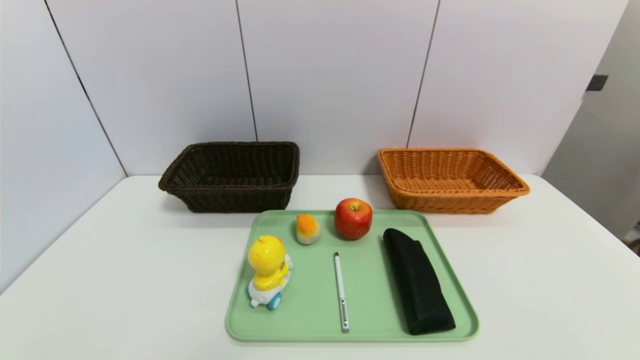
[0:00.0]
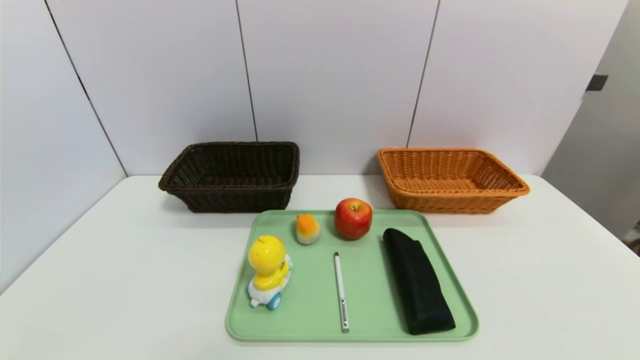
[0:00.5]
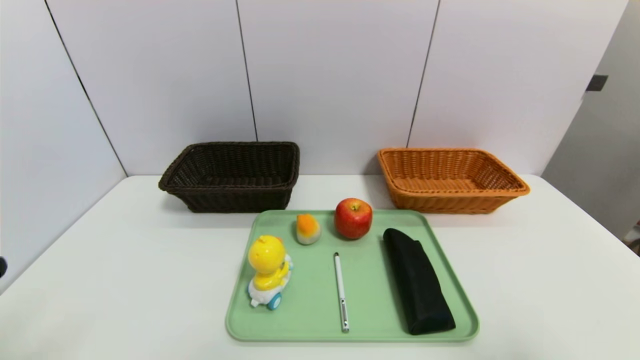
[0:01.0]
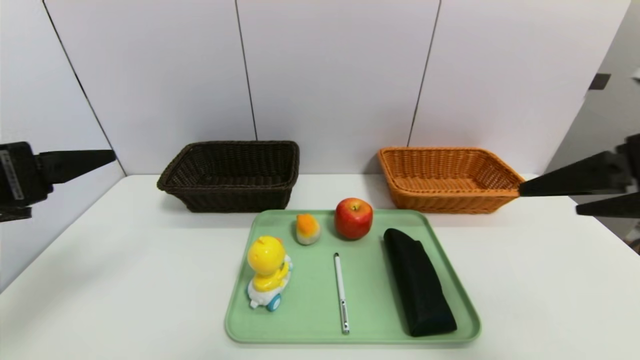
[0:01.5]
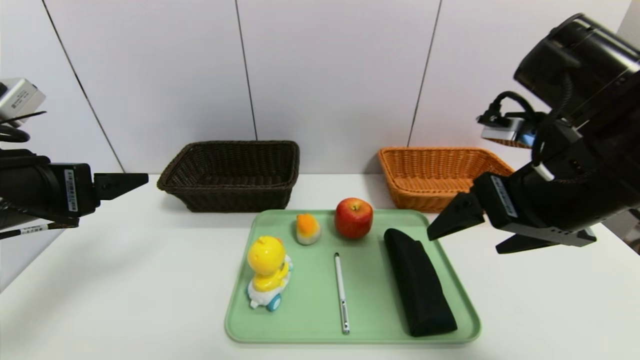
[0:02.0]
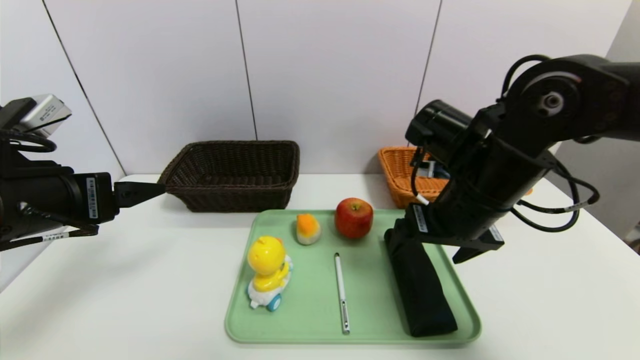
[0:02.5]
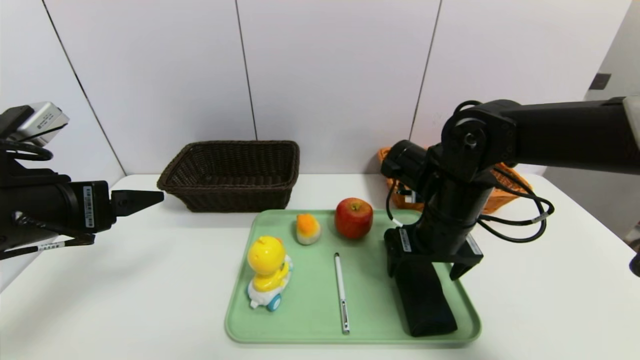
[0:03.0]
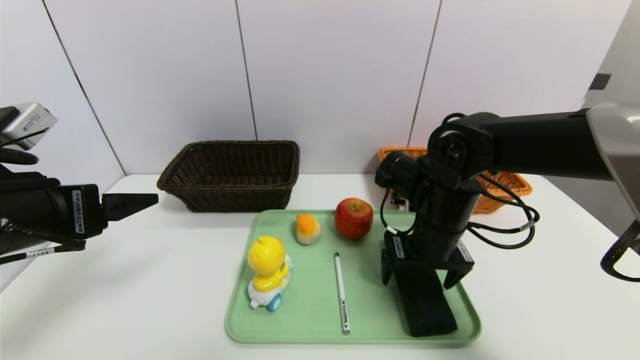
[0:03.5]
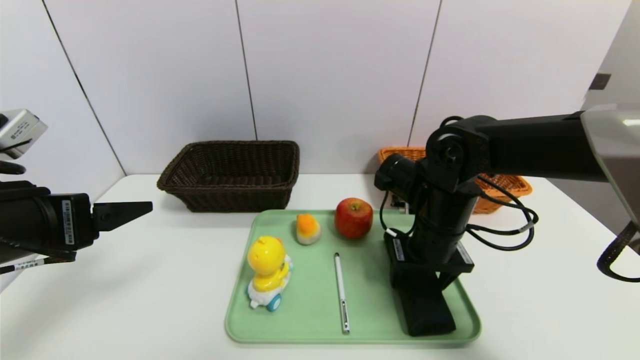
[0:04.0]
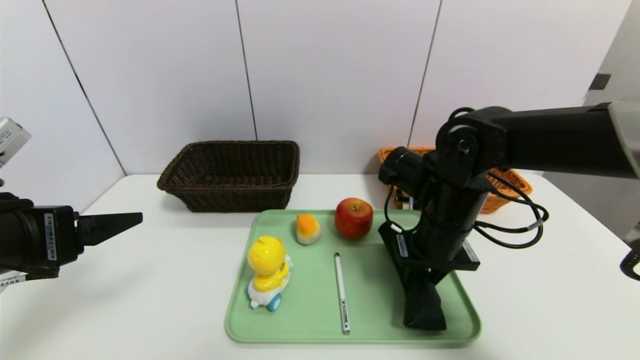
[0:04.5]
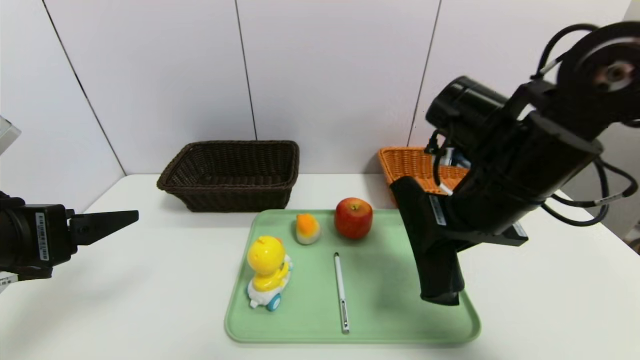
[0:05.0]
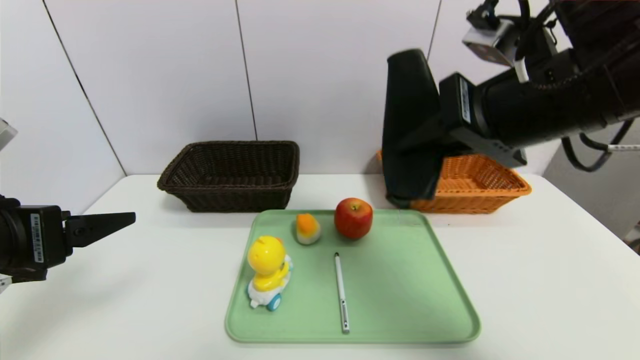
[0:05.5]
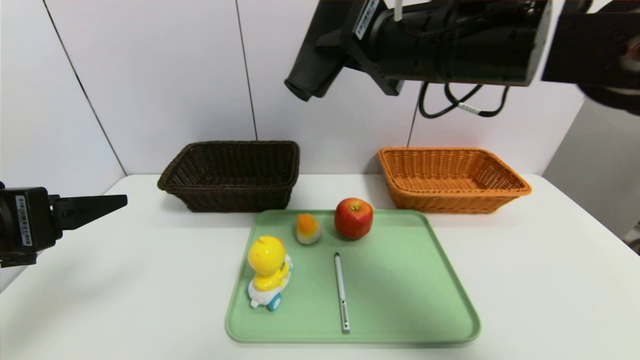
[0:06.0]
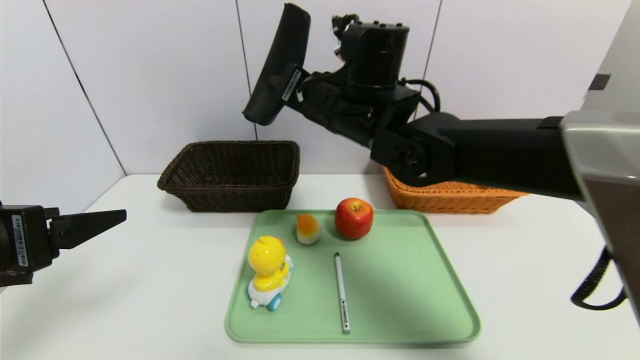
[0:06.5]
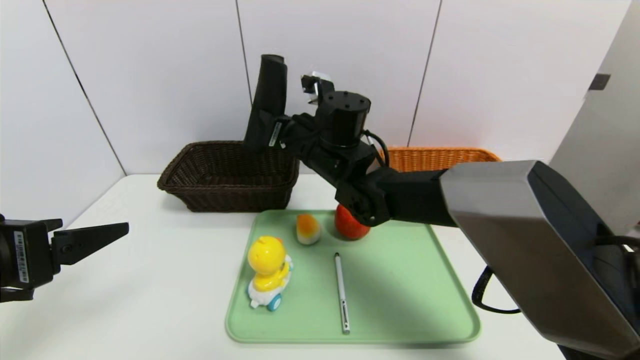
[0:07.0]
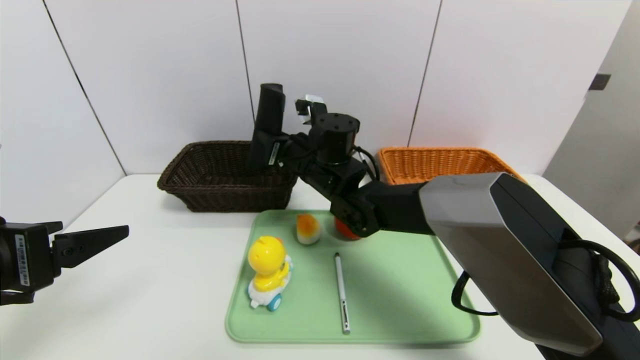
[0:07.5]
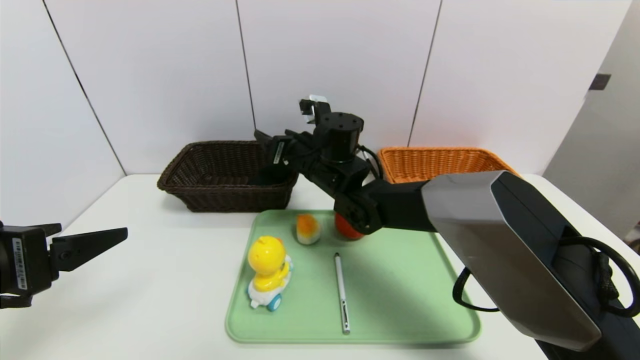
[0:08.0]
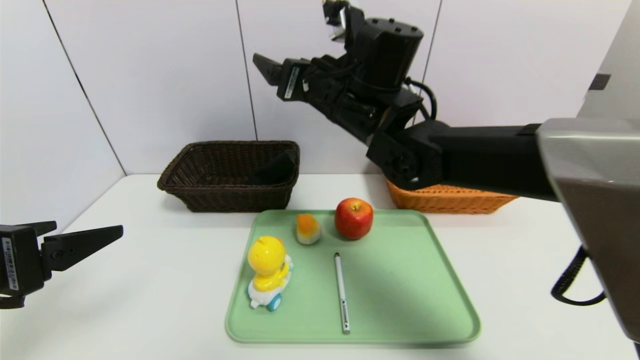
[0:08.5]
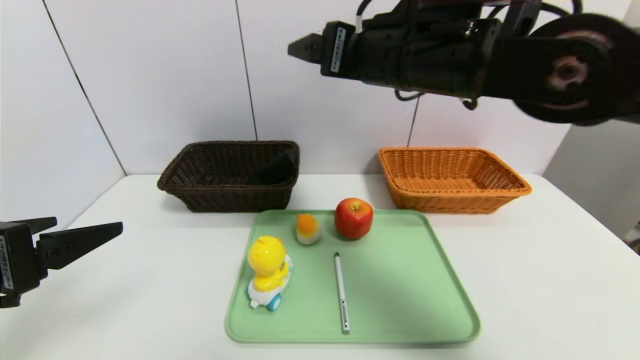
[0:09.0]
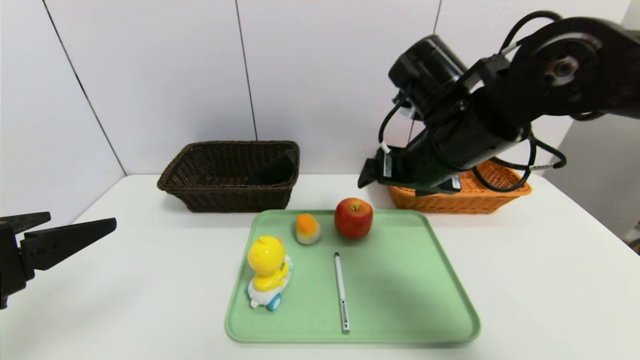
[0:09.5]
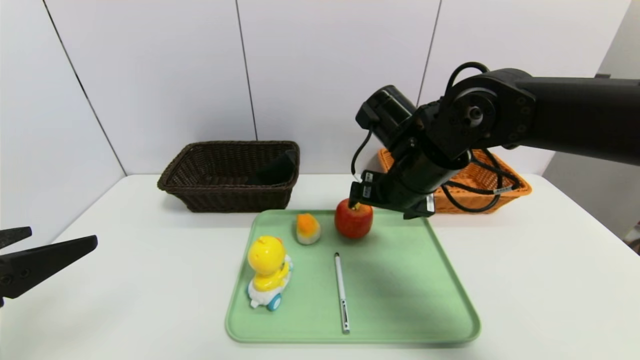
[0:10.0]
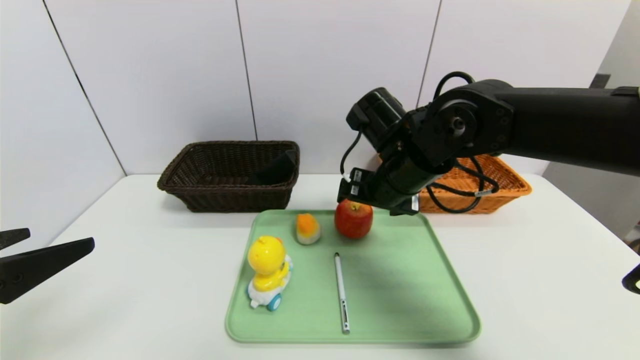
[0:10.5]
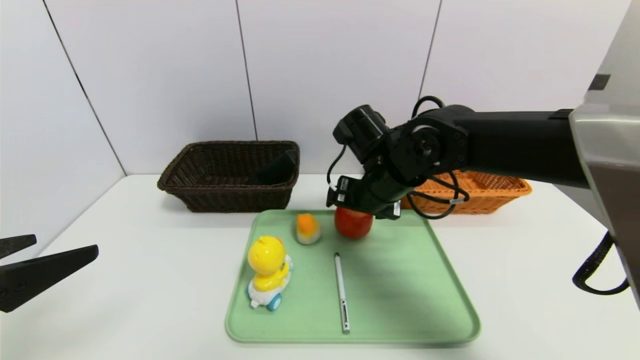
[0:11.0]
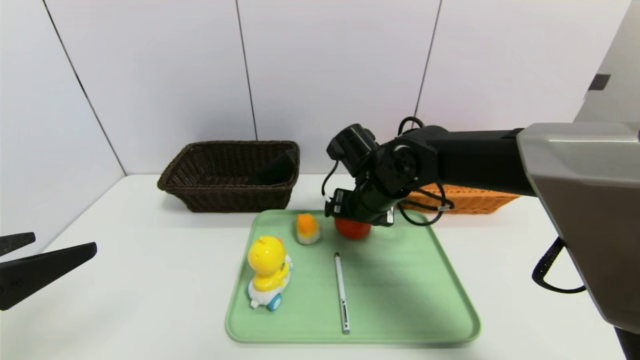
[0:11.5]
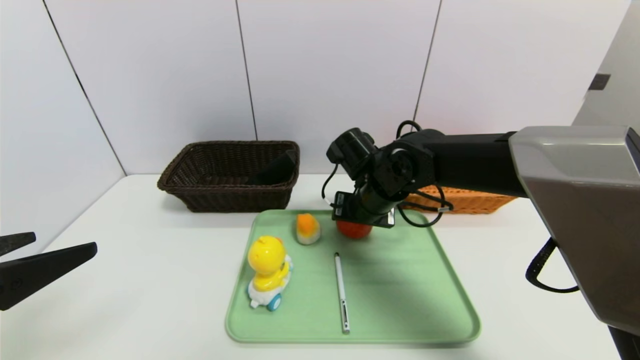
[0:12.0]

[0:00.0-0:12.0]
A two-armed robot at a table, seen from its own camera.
Task of the whole recording: place the food in the right basket with the right gripper, and place the non food items in the left basket with the left gripper.
Step, 0:00.0 to 0:08.0: Grasp the glasses case and put it in the left basket.
0:00.0 to 0:02.0: The right gripper shifts approximately 35 cm forward, upward and to the left. The left gripper is displaced forward and upward by roughly 30 cm.
0:02.0 to 0:04.0: The right gripper travels downward, forward and to the left by some 20 cm.
0:04.0 to 0:06.0: The right gripper goes about 20 cm upward, and closes up.
0:06.0 to 0:08.0: The right gripper shifts some 25 cm downward, forward and to the left, and opens.
0:08.0 to 0:10.0: The right gripper goes about 15 cm to the right and backward, and goes upward and returns, approximately 15 cm each way.
0:10.0 to 0:12.0: The right gripper moves downward, some 5 cm.

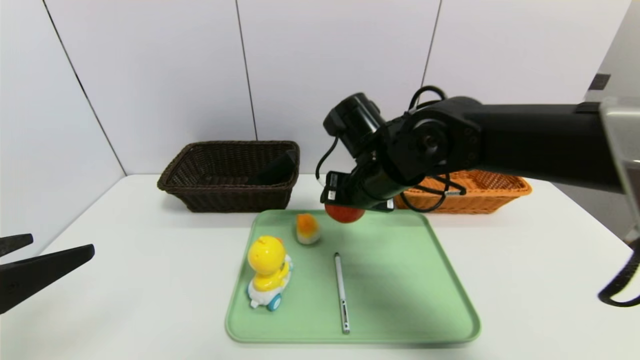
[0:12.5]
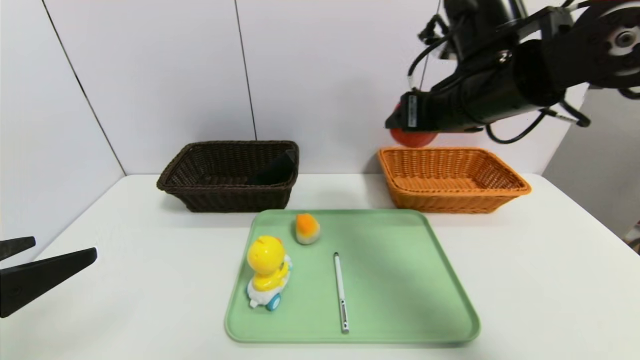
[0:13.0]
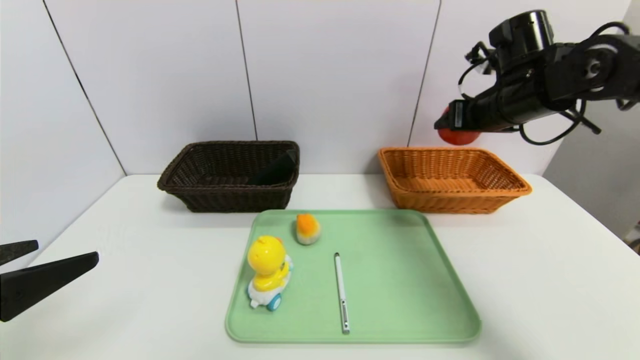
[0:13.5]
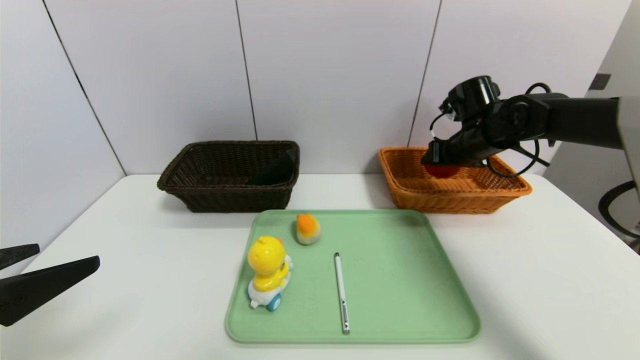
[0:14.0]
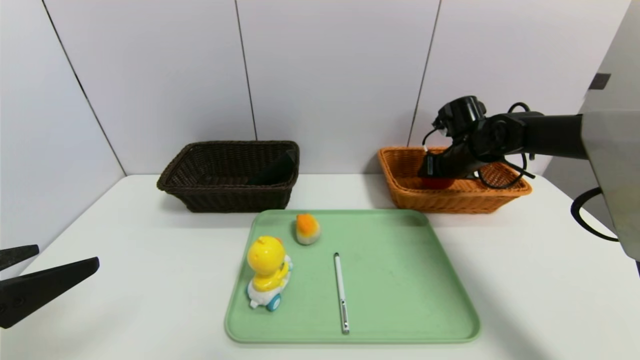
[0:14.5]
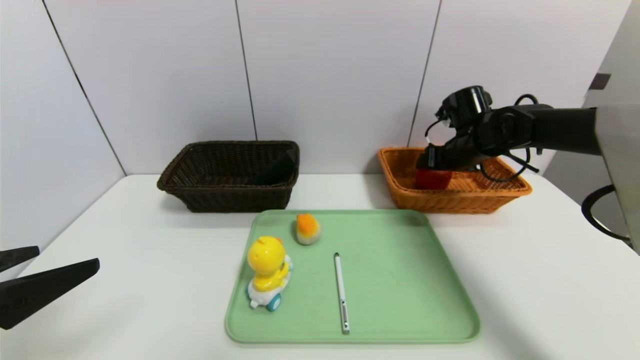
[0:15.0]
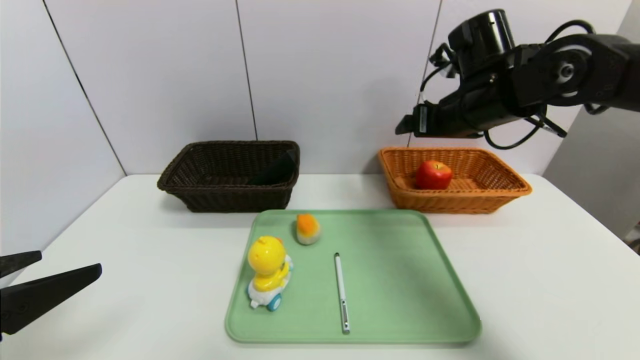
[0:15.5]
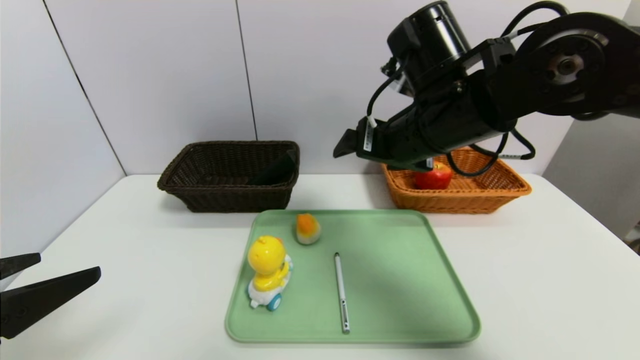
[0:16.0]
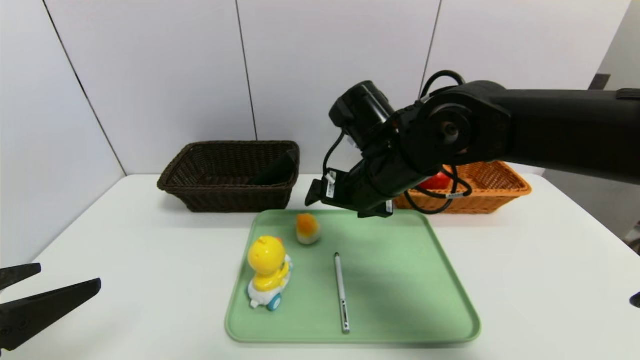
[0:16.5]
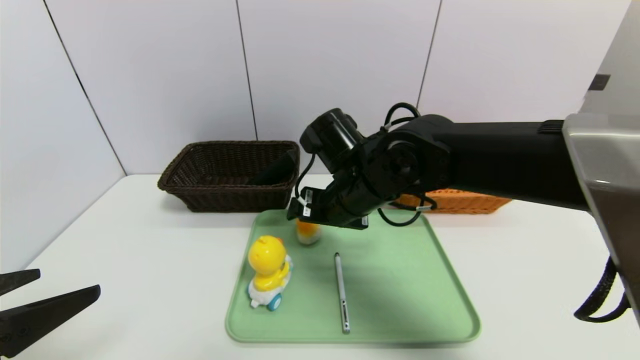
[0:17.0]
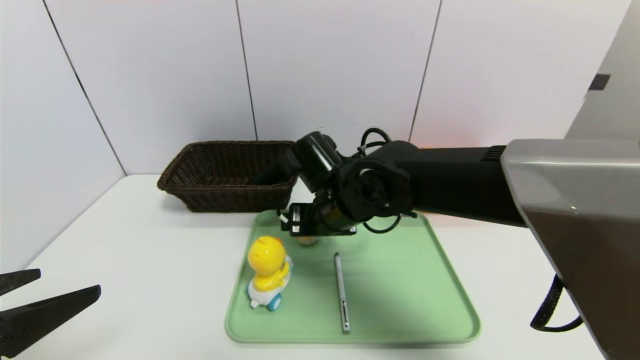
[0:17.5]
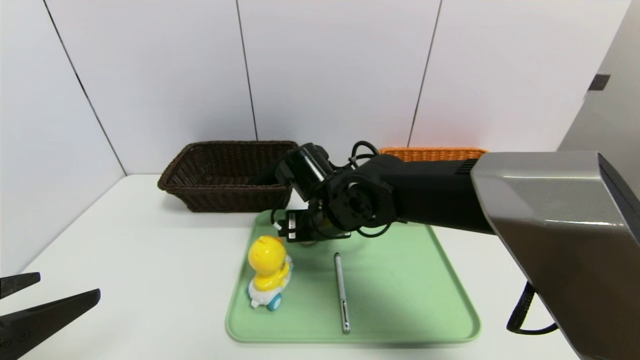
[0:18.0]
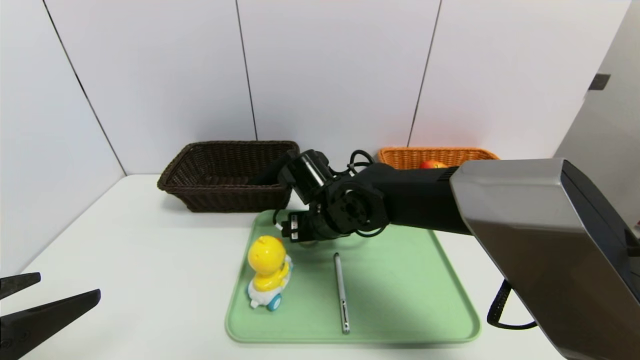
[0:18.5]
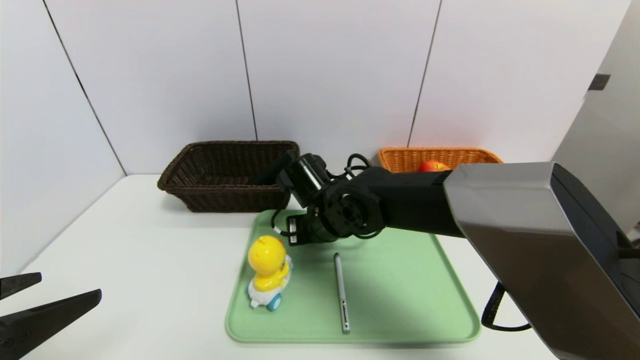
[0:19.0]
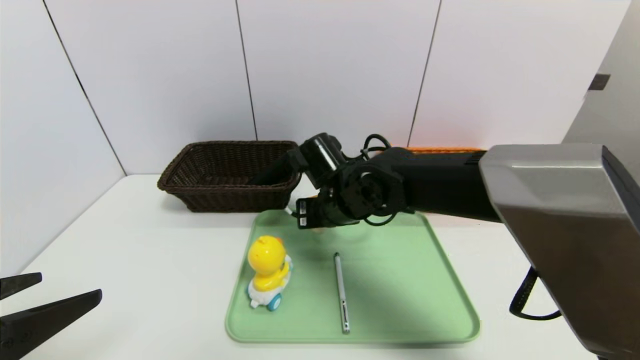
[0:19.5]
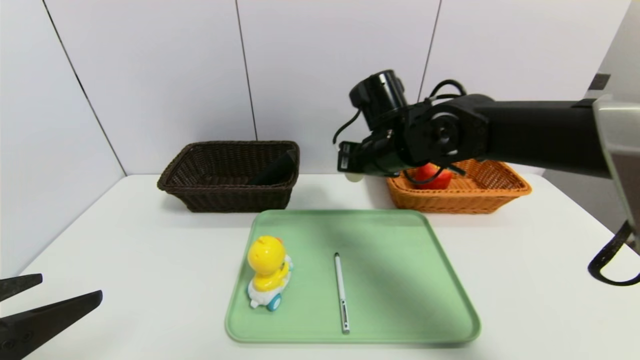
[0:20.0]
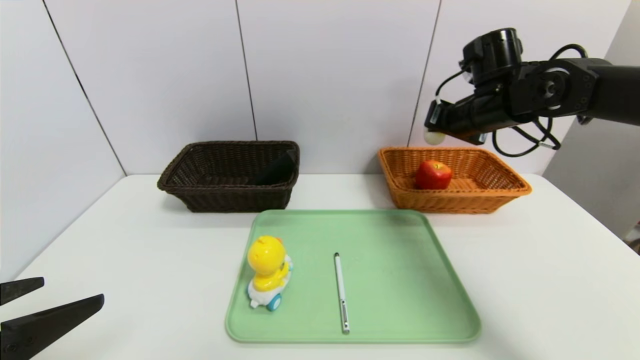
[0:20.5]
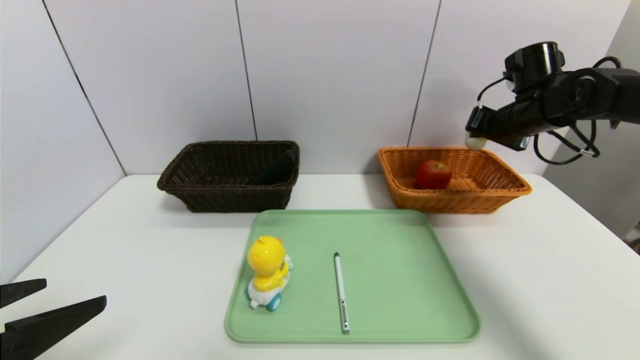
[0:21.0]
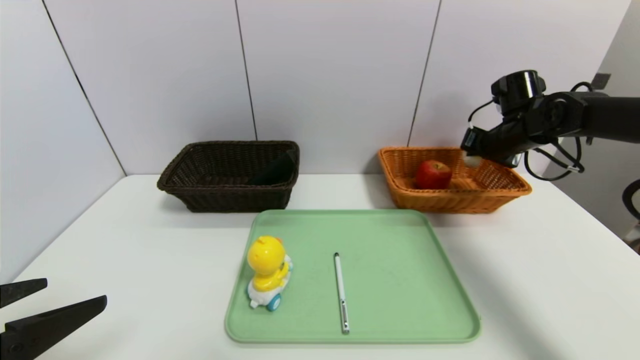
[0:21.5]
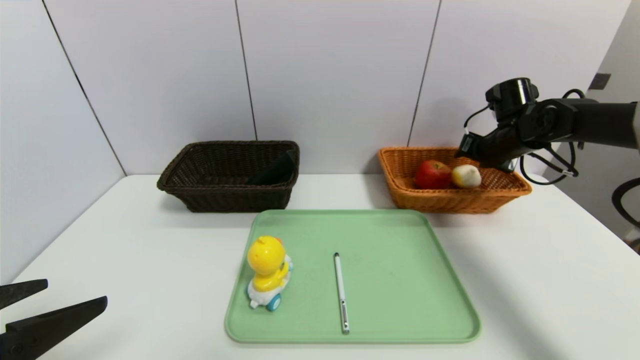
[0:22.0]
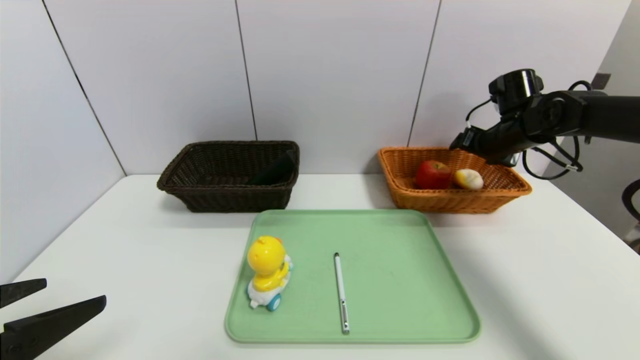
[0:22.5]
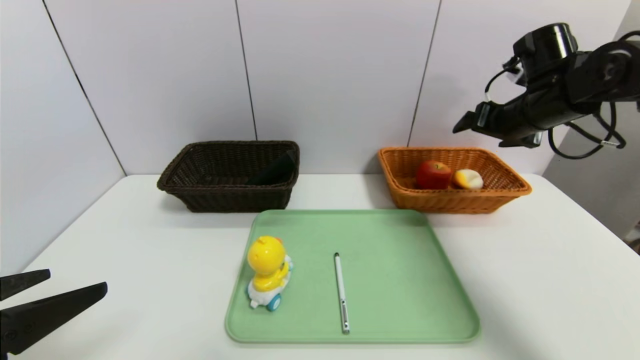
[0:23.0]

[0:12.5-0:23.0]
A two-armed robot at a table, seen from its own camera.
Task of the whole recording: place the food in the right basket with the right gripper, and place the non food items in the left basket with the left gripper.
Step, 0:12.5 to 0:15.0: Grasp the apple and put it in the right basket.
Step, 0:15.5 to 0:22.5: Grasp the egg yolk pastry and put it in the right basket.
0:12.5 to 0:14.5: The right gripper is displaced to the right and forward by approximately 25 cm.
0:14.5 to 0:16.5: The right gripper travels to the left and backward by some 25 cm.
0:16.5 to 0:19.0: The right gripper is displaced downward and to the left by roughly 10 cm, and closes its fingers.
0:19.0 to 0:21.0: The right gripper is displaced to the right by roughly 30 cm, and closes.
0:21.0 to 0:23.0: The right gripper ends up approximately 5 cm from where it was, and opens its fingers.
